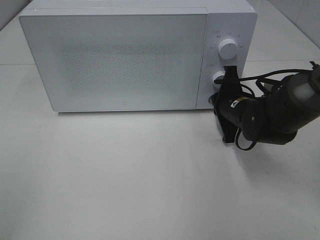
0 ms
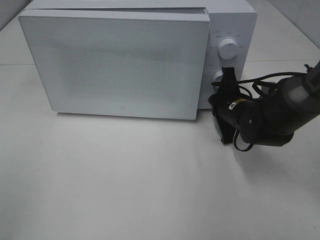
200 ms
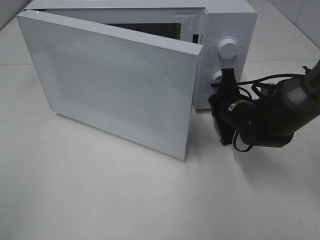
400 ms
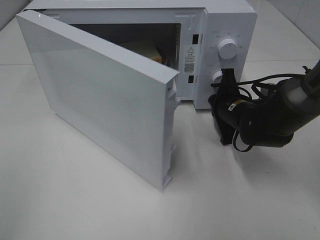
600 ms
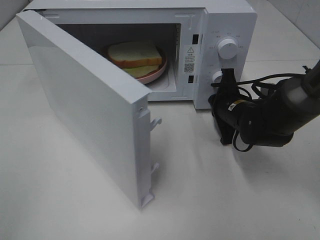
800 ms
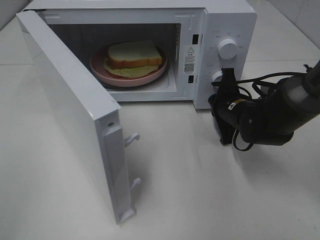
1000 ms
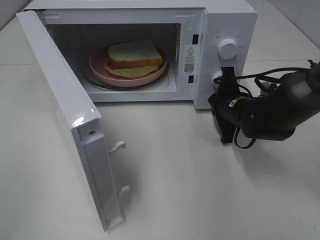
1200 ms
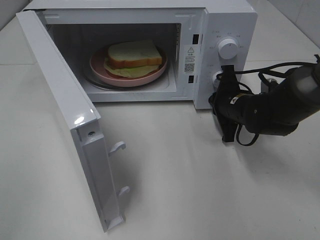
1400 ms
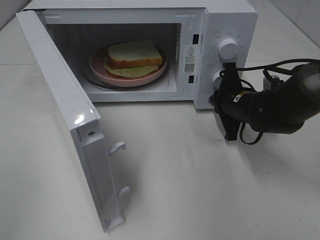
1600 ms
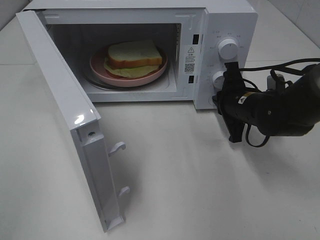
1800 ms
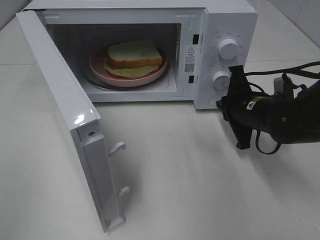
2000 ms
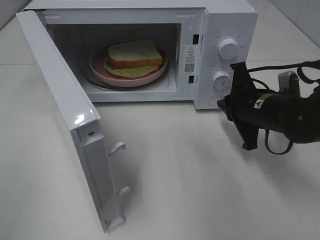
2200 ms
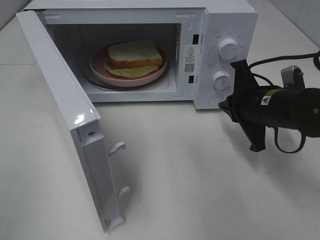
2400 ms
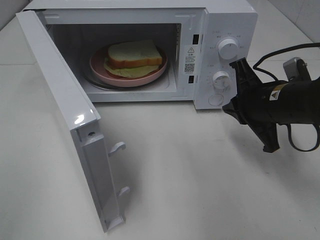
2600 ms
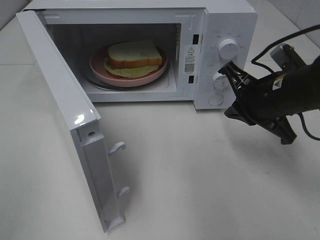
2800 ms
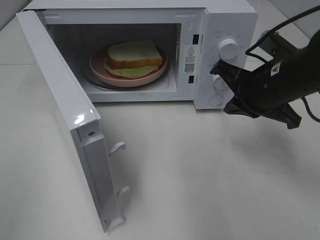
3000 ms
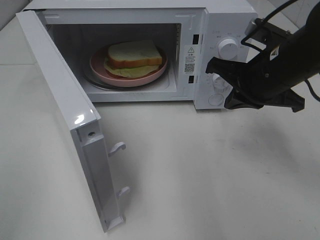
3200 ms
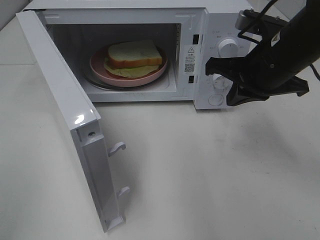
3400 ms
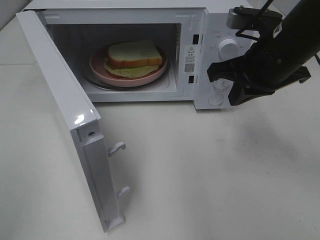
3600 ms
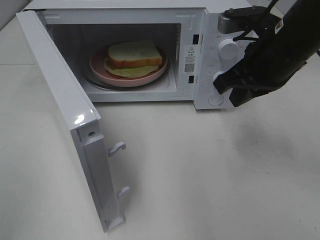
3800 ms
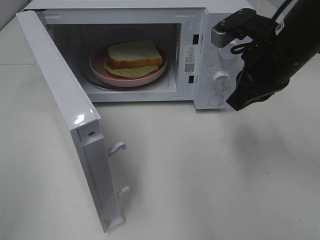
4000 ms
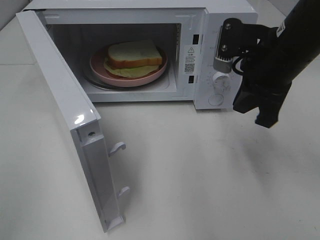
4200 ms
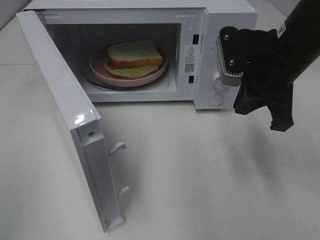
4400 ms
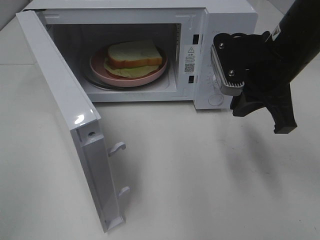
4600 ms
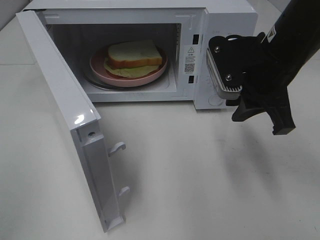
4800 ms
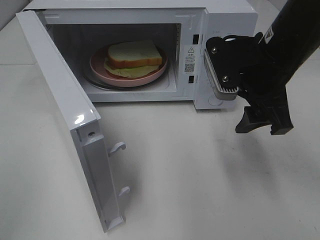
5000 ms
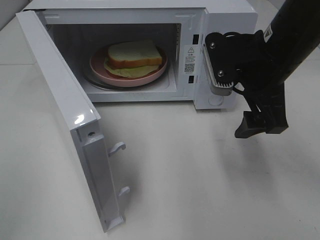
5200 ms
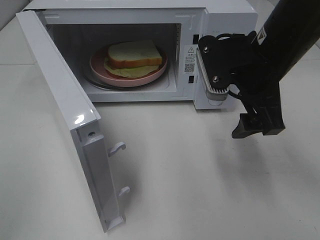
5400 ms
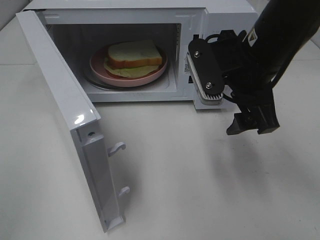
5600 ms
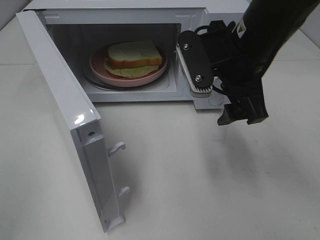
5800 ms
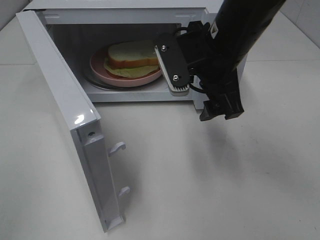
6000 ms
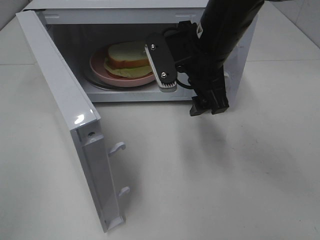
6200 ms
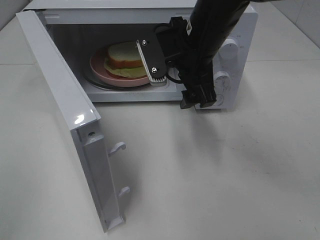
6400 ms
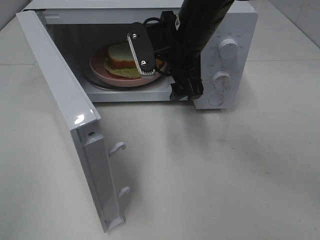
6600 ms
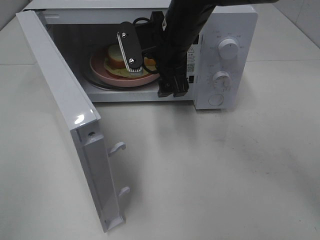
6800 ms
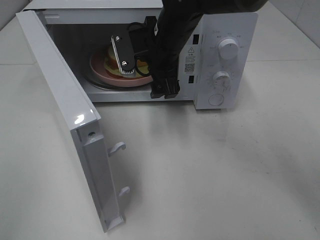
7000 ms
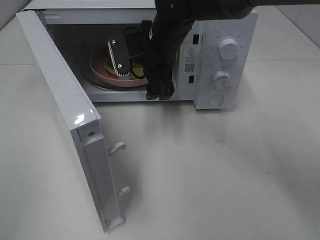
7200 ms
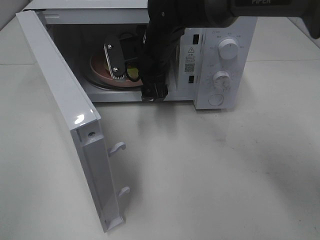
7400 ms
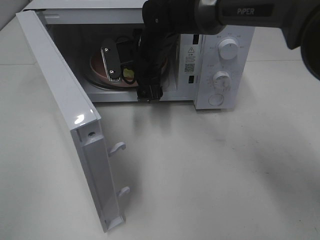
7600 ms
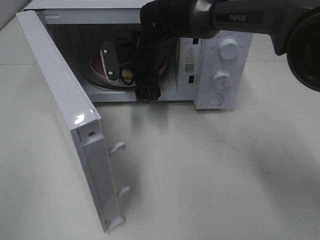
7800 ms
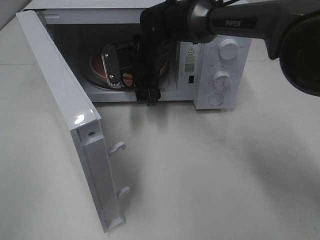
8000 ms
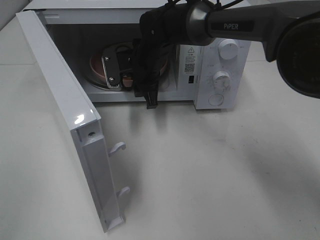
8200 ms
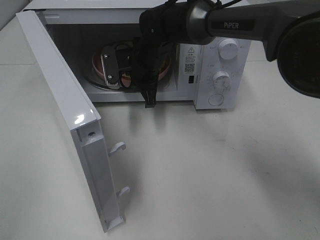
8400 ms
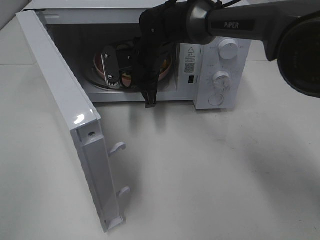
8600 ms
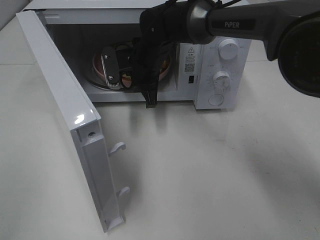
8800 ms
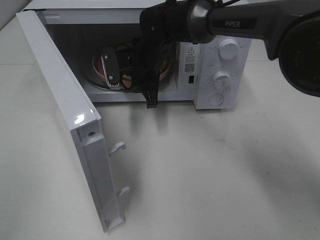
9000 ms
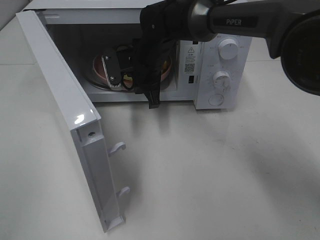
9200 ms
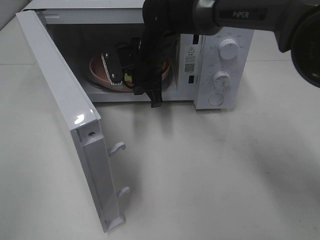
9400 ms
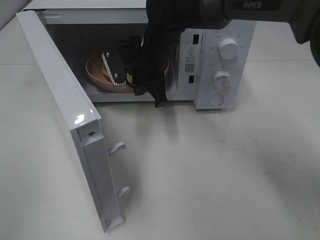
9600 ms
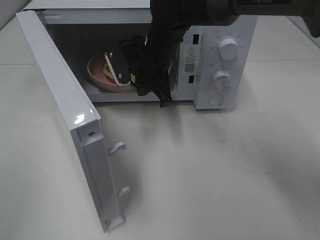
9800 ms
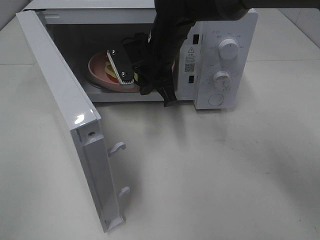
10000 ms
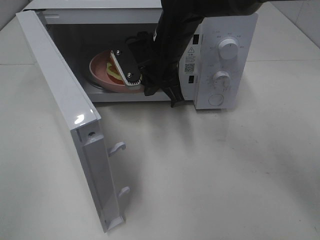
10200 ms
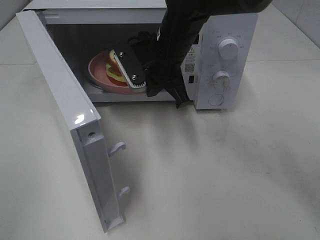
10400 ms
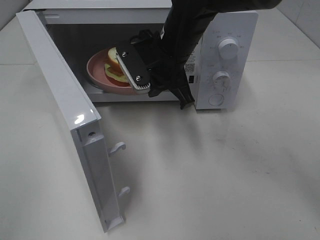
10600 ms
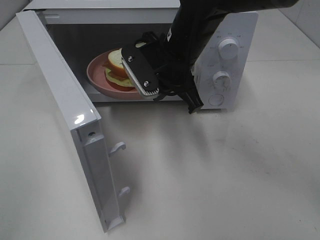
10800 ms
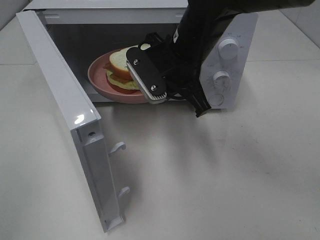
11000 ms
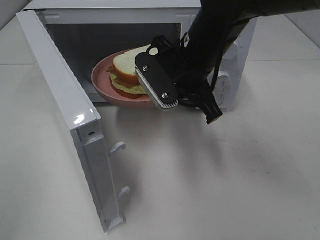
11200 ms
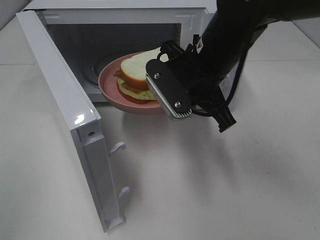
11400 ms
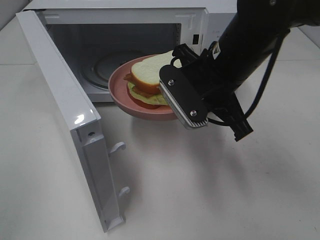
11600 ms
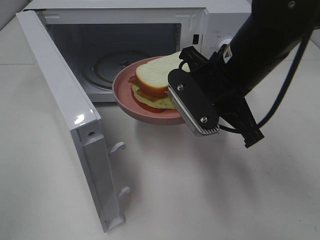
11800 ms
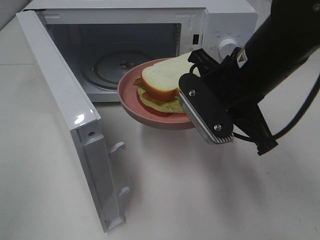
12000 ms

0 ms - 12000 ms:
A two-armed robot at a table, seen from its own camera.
Task of the whole recording: Heat Sandwich.
Step, 0 ms - 2000 ms: Right hand: press the switch.
Step, 2200 ms - 8800 ms: Right hand: grab the plate with the sandwich.
1600 ms - 3000 ms: The right gripper moves upward and backward, roughly 10 cm.
4400 ms - 6000 ms: The right gripper travels to the left by about 10 cm, and opens.
6000 ms - 7600 ms: The right gripper travels forward, to the left and downward by about 20 cm.
7600 ms - 9000 ms: The right gripper closes its fingers.
9000 ms - 10400 ms: The right gripper goes approximately 10 cm backward and upward.
10400 ms - 12000 ms: The right gripper shifts roughly 15 cm backward and to the right.

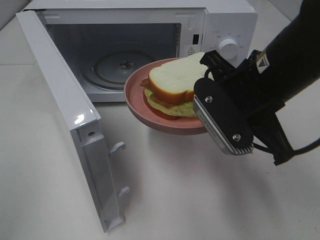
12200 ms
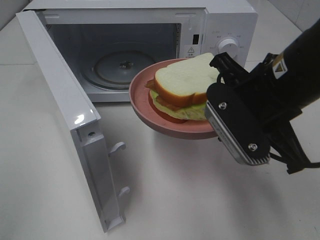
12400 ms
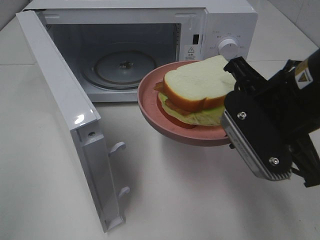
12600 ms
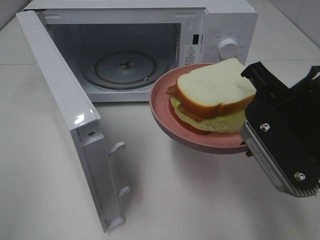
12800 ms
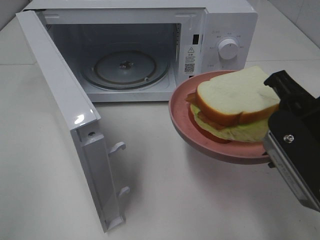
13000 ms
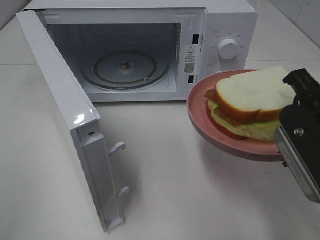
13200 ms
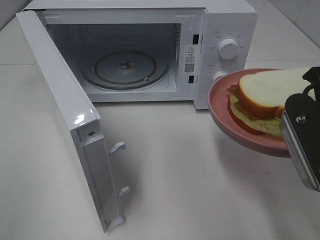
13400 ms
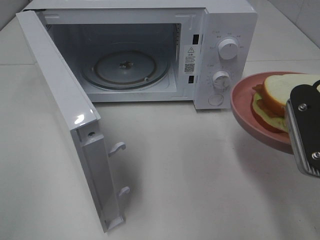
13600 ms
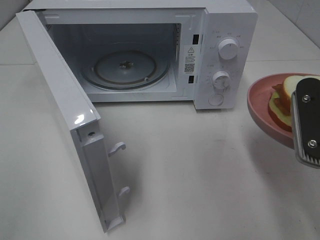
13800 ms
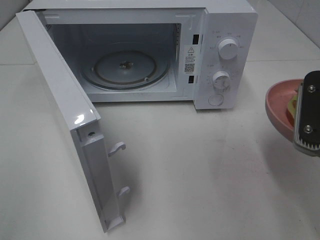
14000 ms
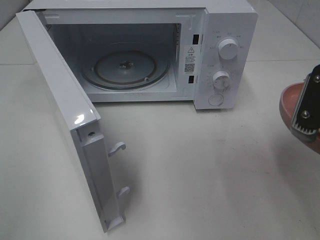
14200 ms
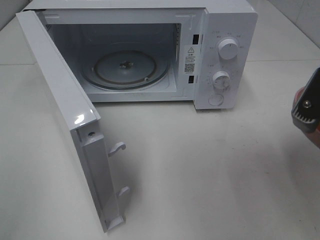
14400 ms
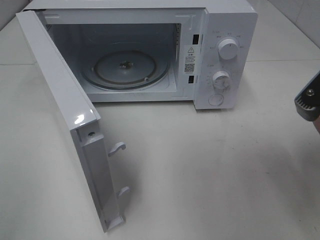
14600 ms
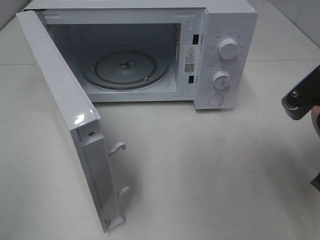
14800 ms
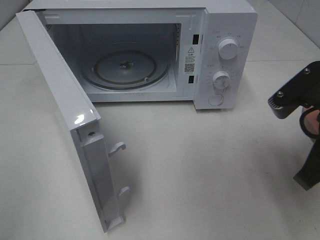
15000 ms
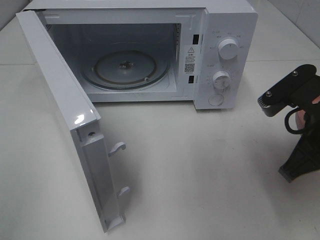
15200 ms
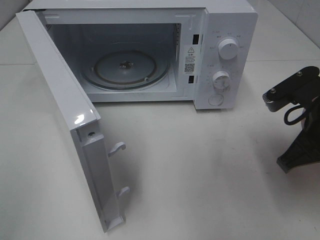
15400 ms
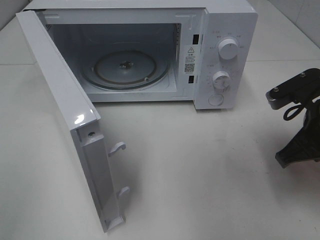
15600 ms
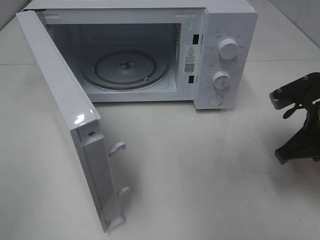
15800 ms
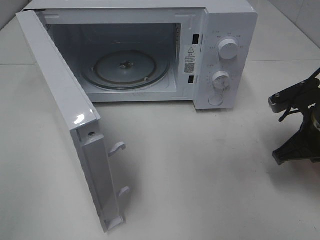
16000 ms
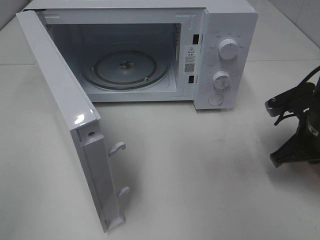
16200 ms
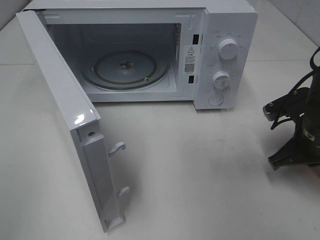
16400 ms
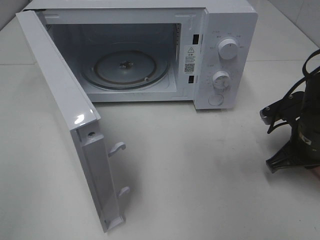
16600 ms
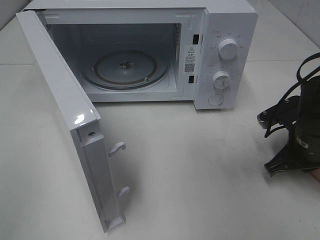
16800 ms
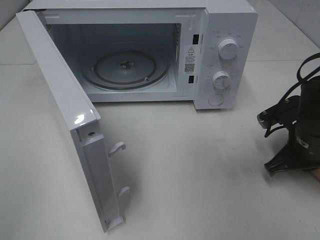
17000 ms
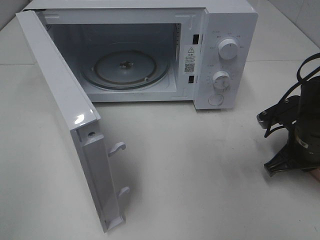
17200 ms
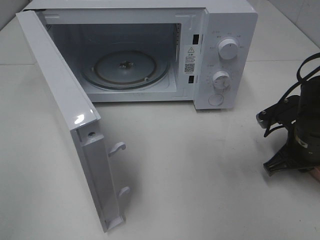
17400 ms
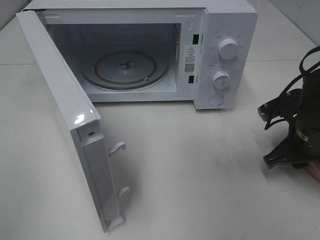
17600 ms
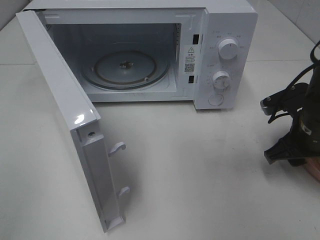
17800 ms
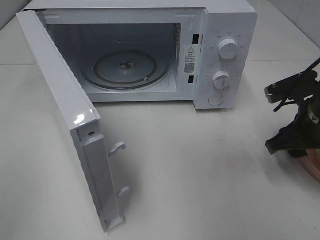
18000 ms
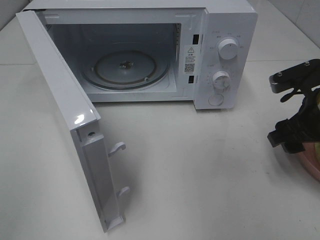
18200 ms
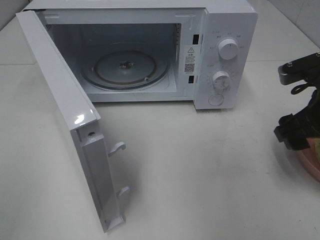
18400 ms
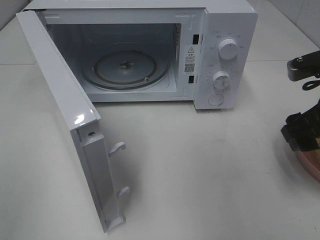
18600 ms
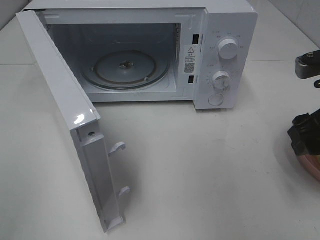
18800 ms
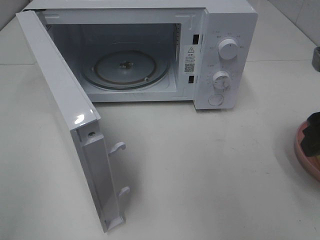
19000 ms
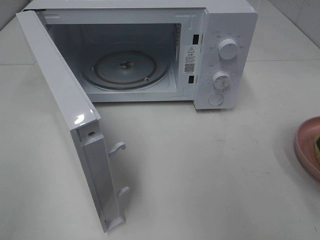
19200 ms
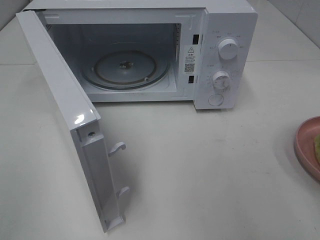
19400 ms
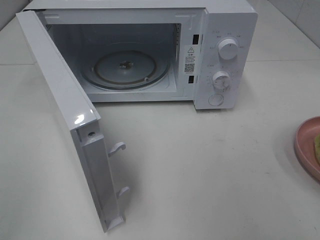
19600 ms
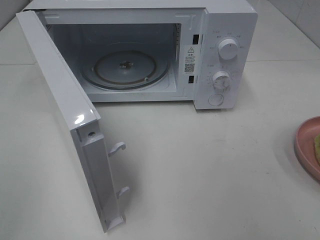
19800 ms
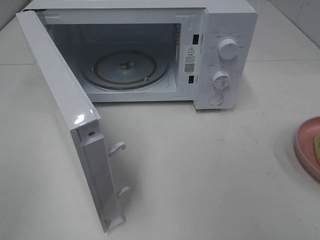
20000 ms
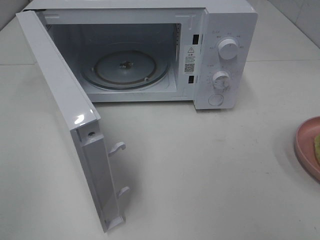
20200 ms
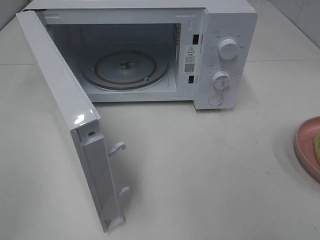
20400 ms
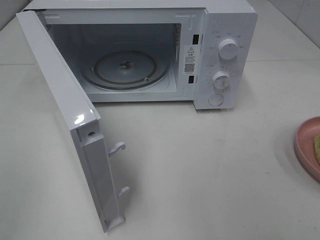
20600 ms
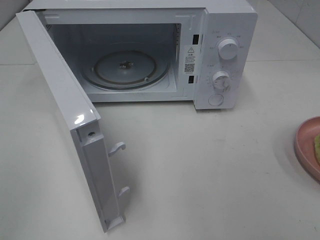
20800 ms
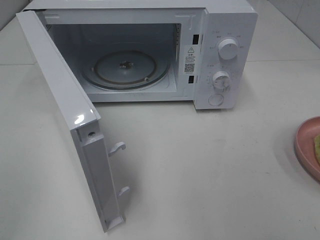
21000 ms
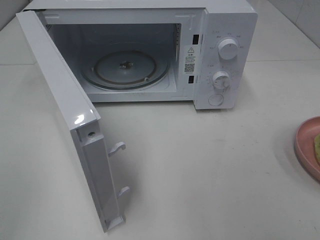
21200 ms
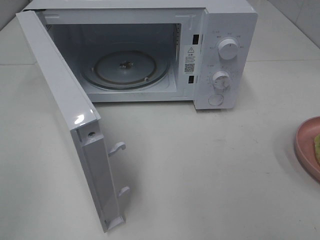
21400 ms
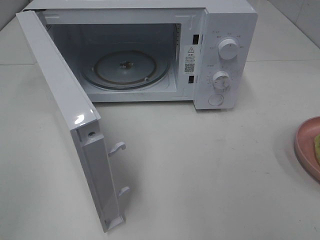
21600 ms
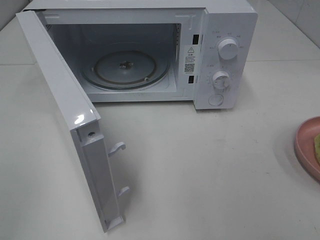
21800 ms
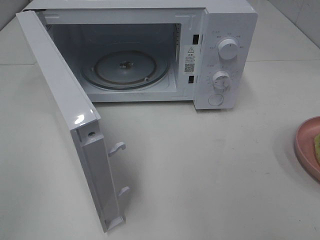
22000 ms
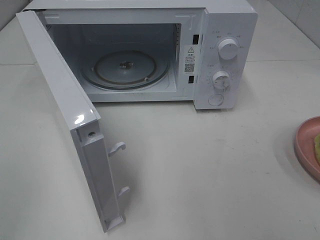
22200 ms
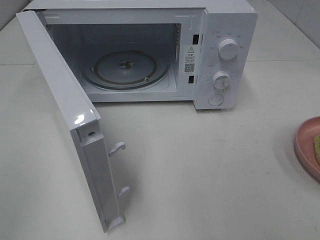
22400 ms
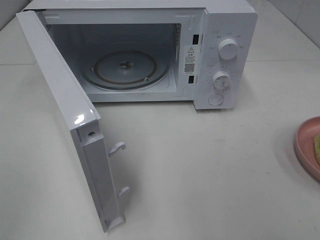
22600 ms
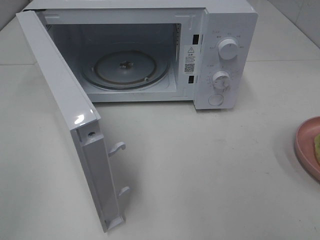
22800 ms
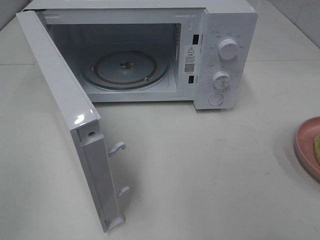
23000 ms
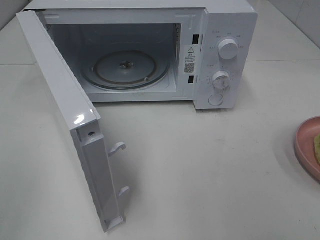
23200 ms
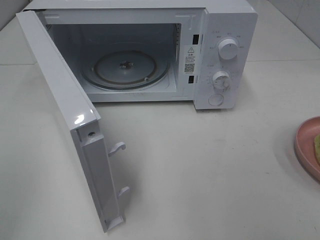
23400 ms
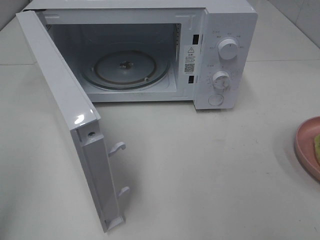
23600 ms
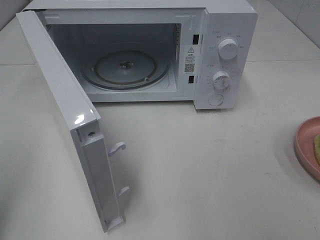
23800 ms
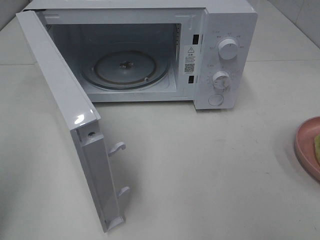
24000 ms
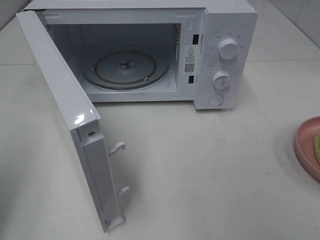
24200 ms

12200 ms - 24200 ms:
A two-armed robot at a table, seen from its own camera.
Task of the whole recording: Heat Sandwich.
Step, 12200 ms - 17800 ms: Right hand: place the plate on the table.
12200 ms - 13800 ms: The right gripper travels to the right and backward by approximately 10 cm.
13800 ms - 15200 ms: The right gripper moves roughly 5 cm.
15200 ms - 16600 ms: The right gripper goes about 10 cm downward and forward.
16600 ms - 18200 ms: The right gripper goes some 5 cm upward, and opens its fingers.
18200 ms - 19800 ms: The right gripper heads backward and upward, covering approximately 20 cm.
21200 ms - 22600 ms: The two grippers keep their place.
